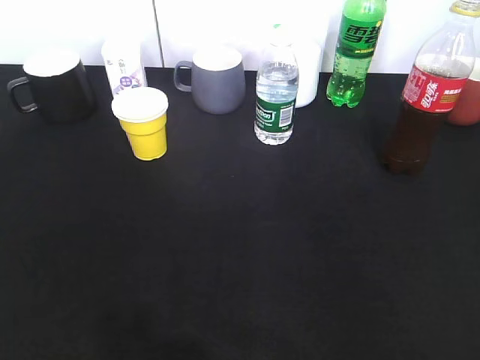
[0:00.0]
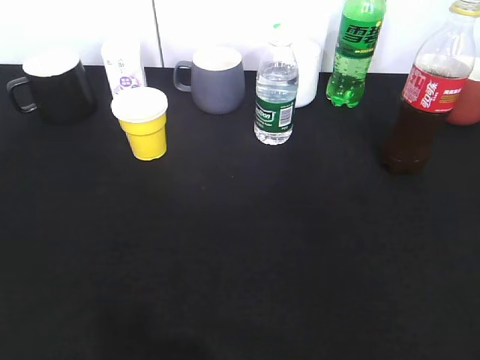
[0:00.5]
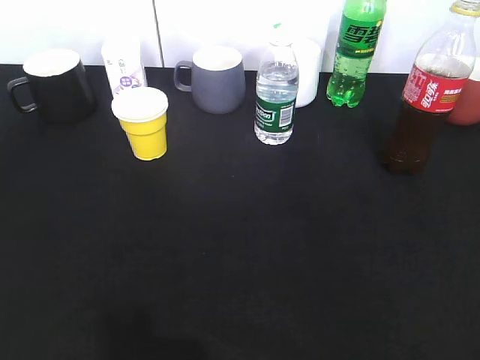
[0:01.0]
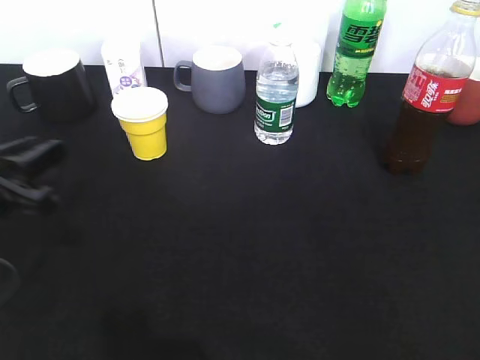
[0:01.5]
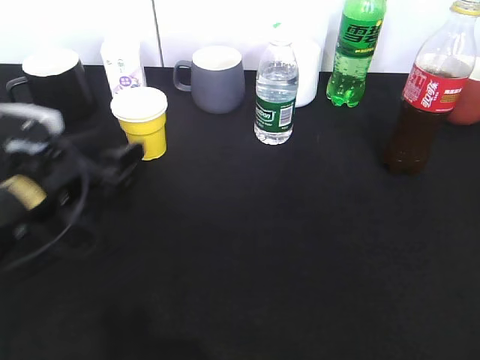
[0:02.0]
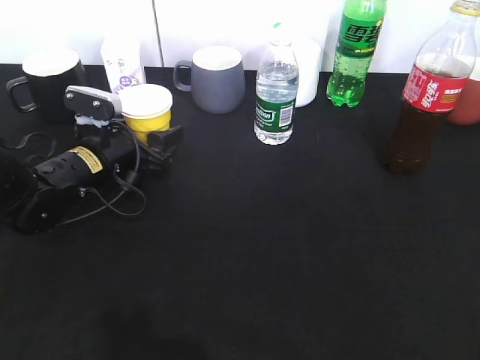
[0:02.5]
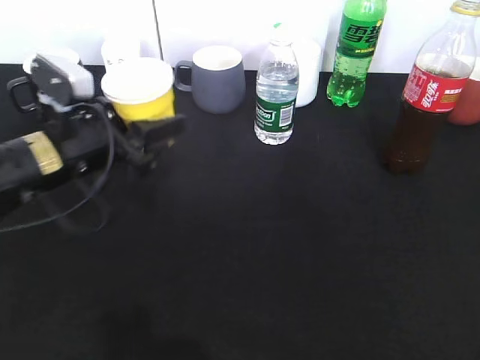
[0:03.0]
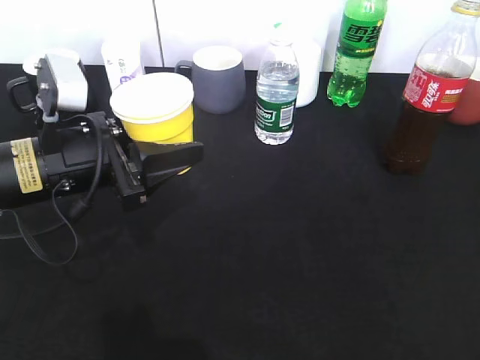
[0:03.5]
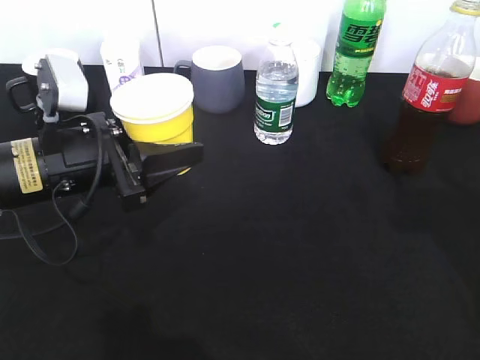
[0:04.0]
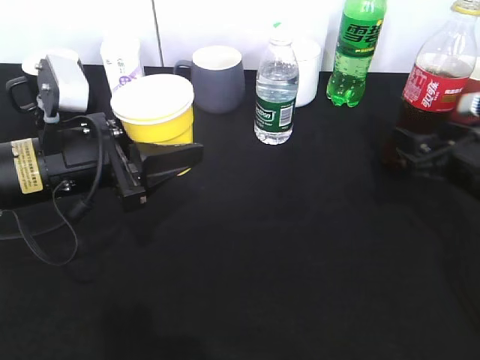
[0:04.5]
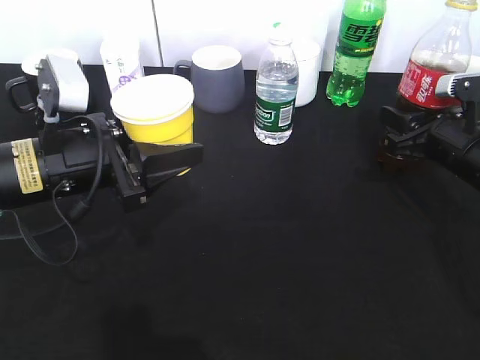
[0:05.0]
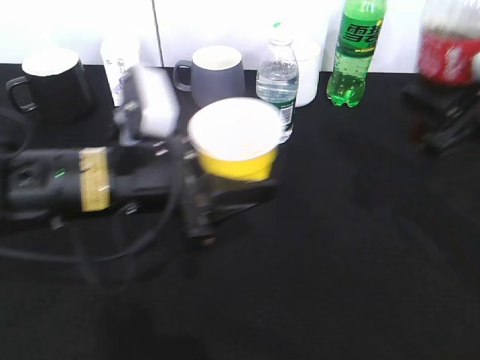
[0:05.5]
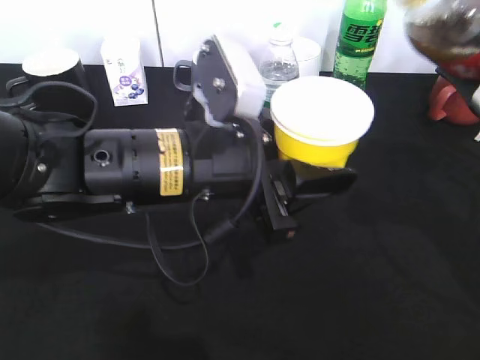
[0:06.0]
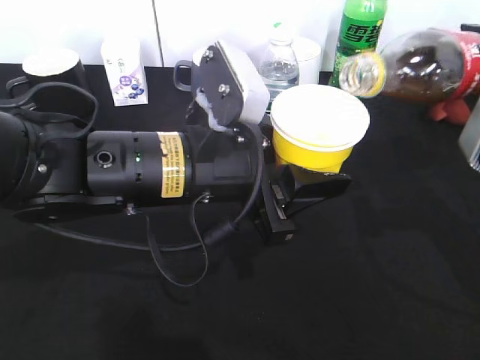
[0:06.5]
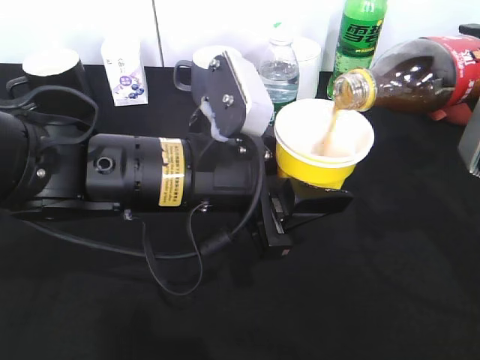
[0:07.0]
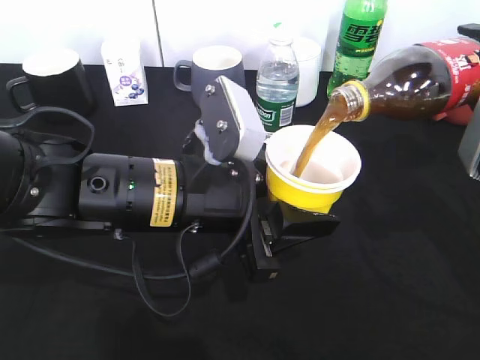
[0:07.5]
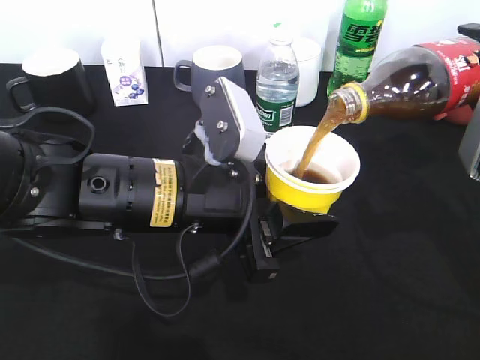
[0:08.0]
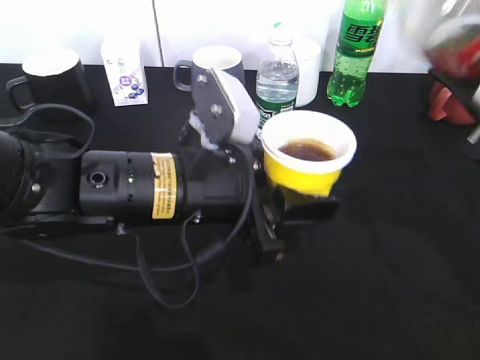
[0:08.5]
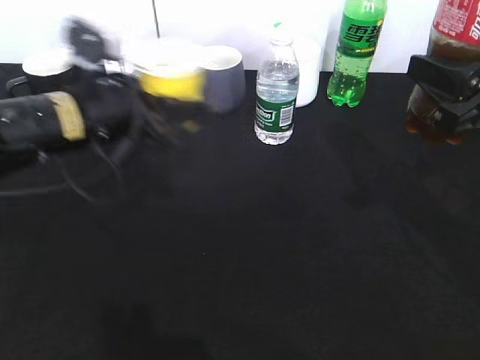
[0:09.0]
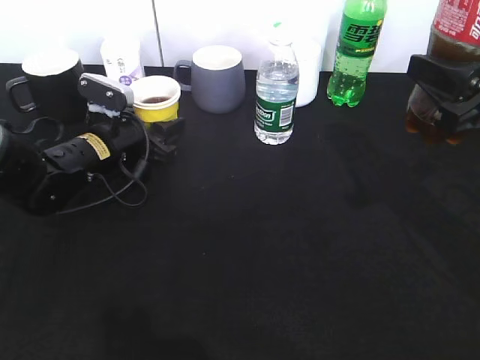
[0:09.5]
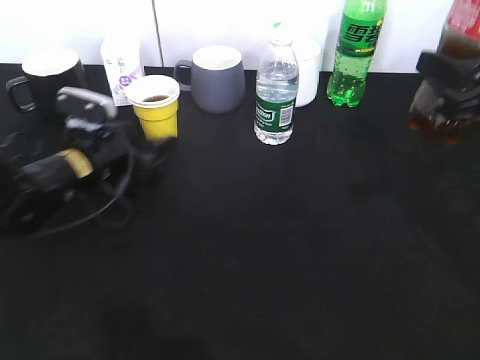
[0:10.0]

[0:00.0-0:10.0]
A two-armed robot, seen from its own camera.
Step, 0:01.0 to 0:02.5: Grasp the yellow paper cup with left gripper.
Step, 0:03.5 to 0:05.0: Grasp the bottle with cola with right gripper.
Step, 0:05.5 to 0:08.0: Pour the cola from bottle to cup with right gripper.
Step, 0:08.5 to 0:09.5: Place the yellow paper cup on the table with left gripper.
0:00.0 to 0:02.0: The left gripper is displaced forward and downward by about 35 cm, and opens its fingers.
0:02.0 to 0:04.0: The right gripper heads forward, covering some 20 cm. Meanwhile the left gripper travels upward by some 5 cm, goes forward and returns, approximately 5 cm each way, and closes up.
0:04.0 to 0:06.0: The right gripper reaches about 15 cm forward, then returns, and closes. Meanwhile the left gripper moves to the right, approximately 15 cm.
0:08.0 to 0:10.0: The left gripper goes about 20 cm to the left, forward and downward, and opens.

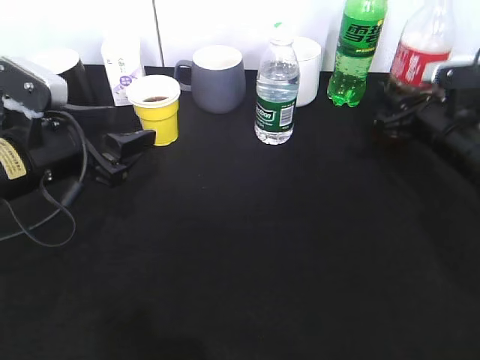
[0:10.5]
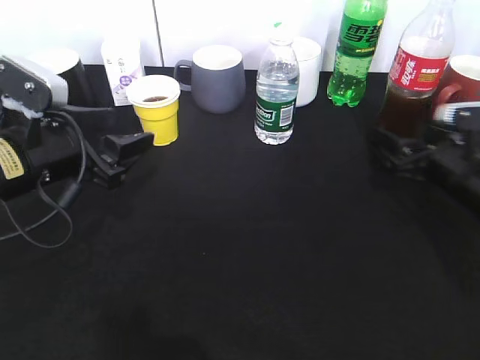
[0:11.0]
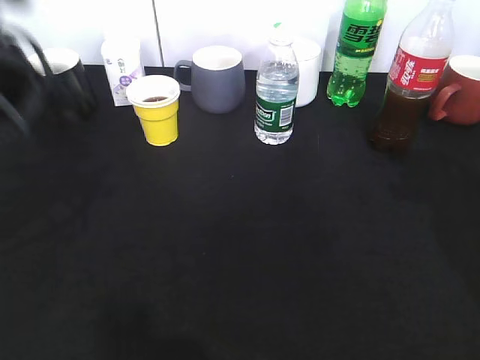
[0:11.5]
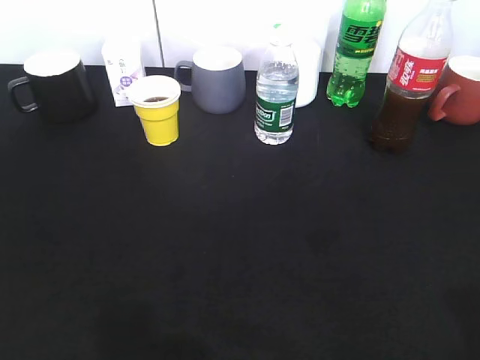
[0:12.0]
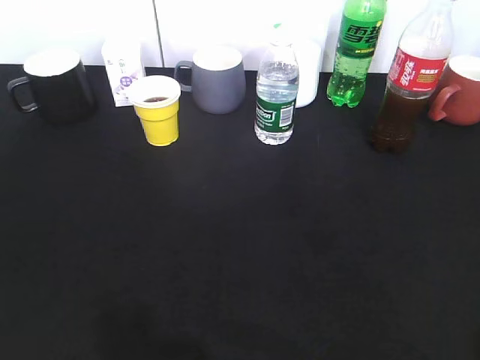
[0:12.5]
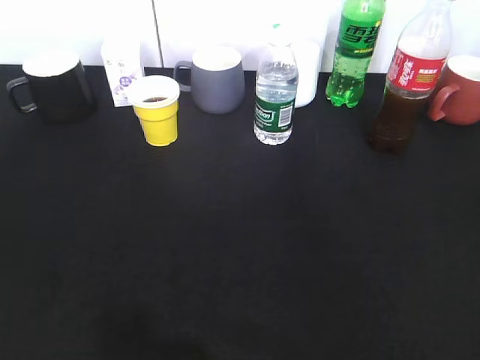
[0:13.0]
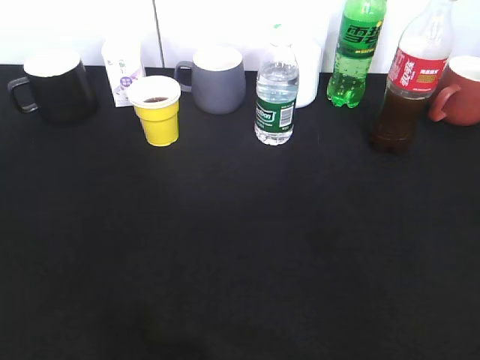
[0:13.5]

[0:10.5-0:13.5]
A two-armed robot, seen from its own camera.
0:10.5 to 0:12.0: The right gripper travels backward and upward by about 40 cm, and opens. The left gripper is displaced backward, upward and to the left by roughly 30 cm, and closes up.

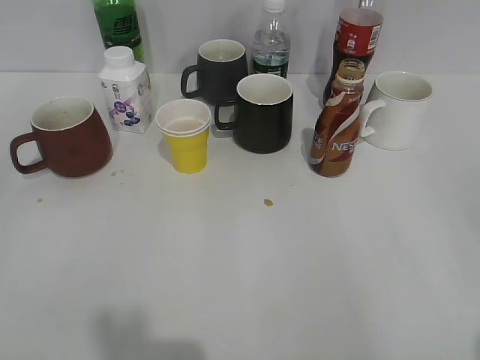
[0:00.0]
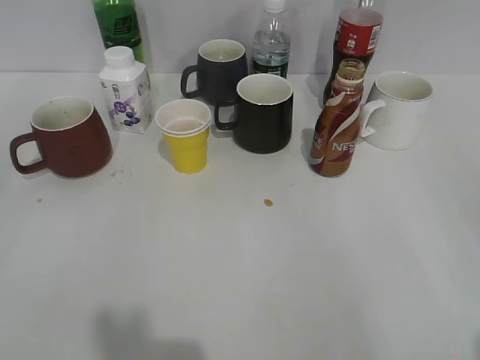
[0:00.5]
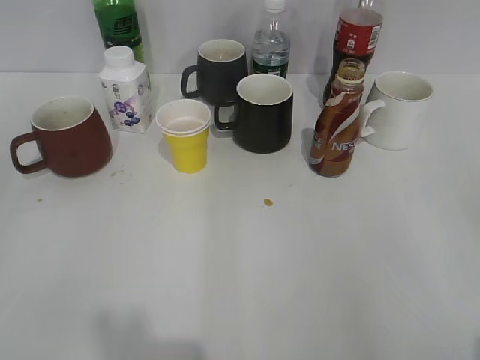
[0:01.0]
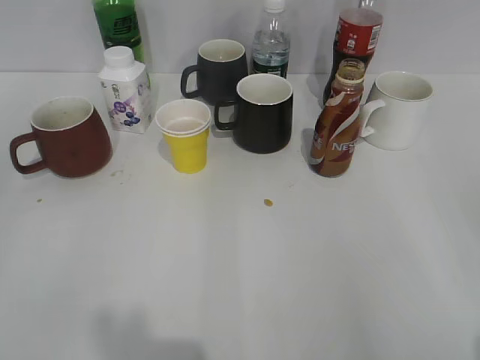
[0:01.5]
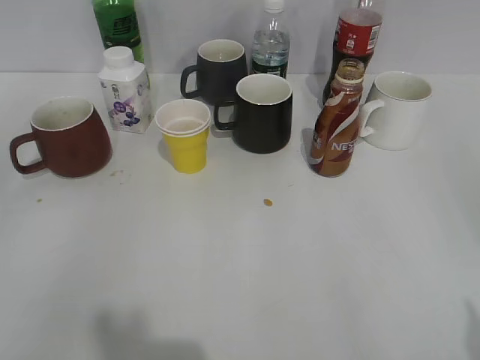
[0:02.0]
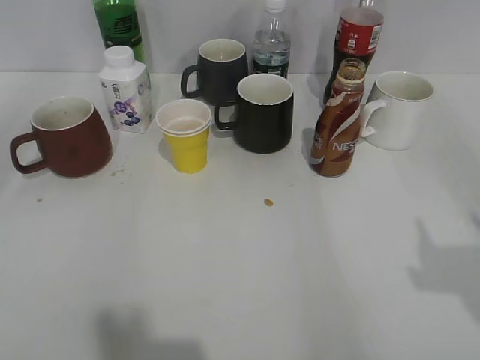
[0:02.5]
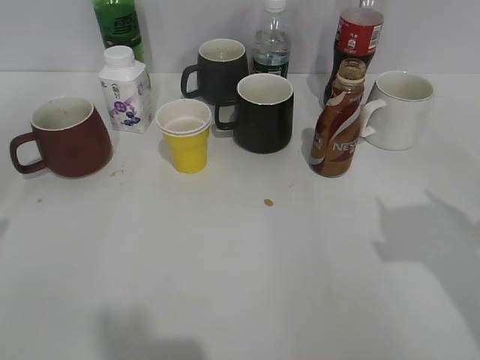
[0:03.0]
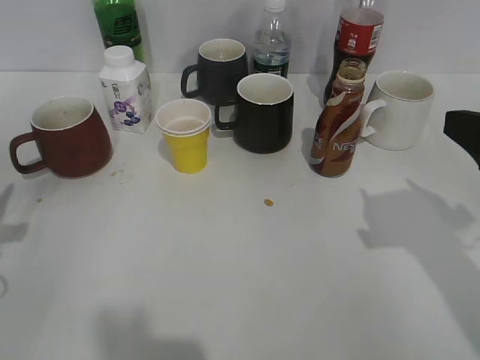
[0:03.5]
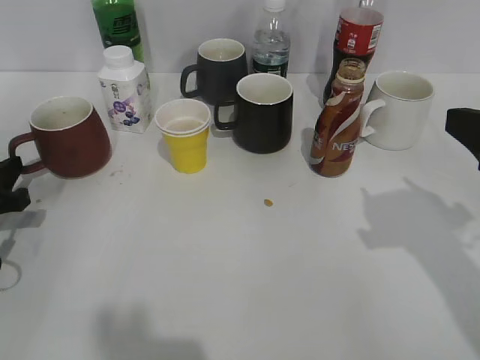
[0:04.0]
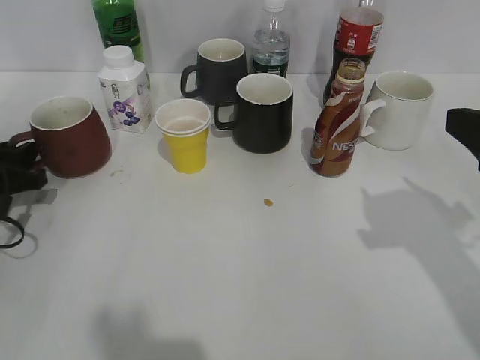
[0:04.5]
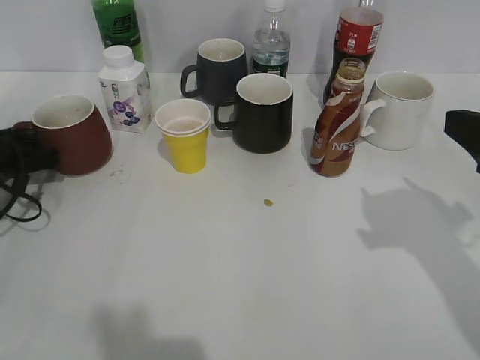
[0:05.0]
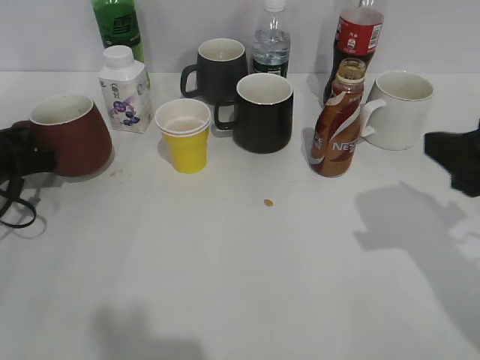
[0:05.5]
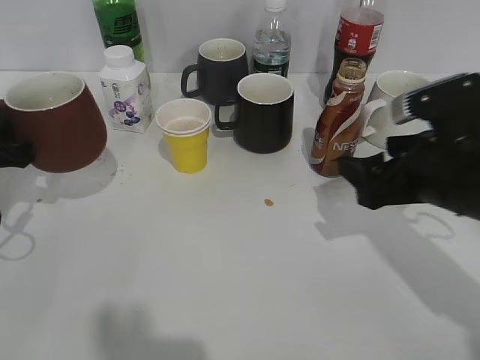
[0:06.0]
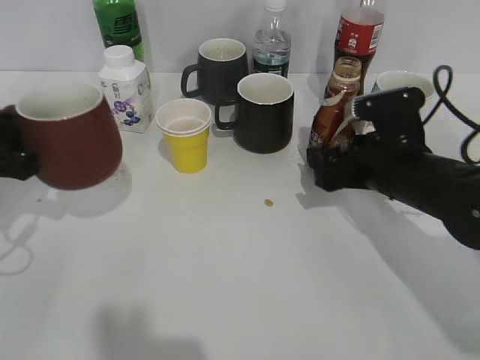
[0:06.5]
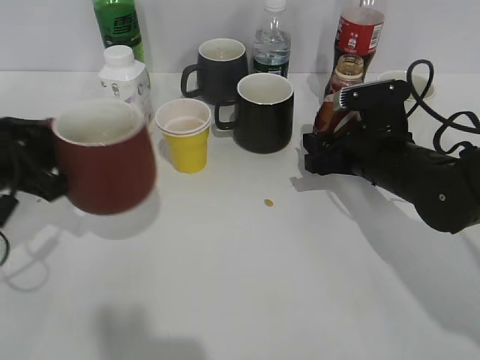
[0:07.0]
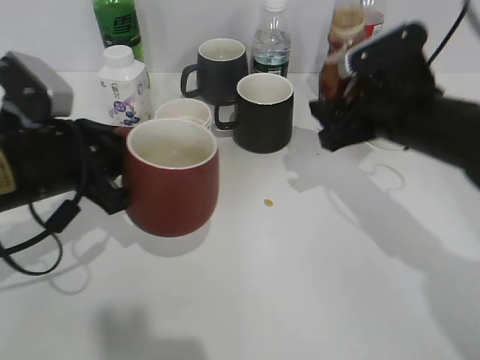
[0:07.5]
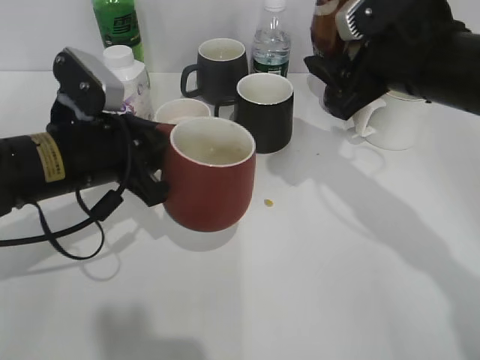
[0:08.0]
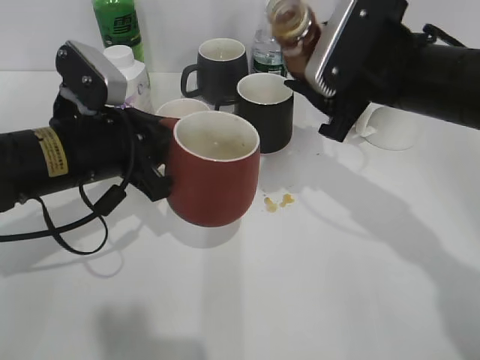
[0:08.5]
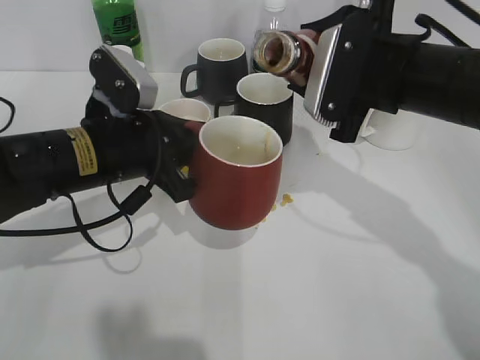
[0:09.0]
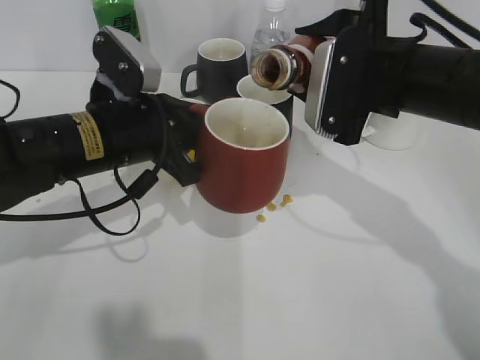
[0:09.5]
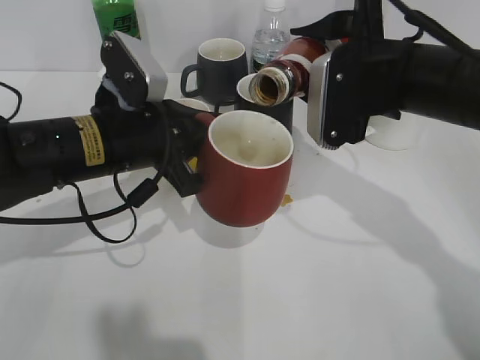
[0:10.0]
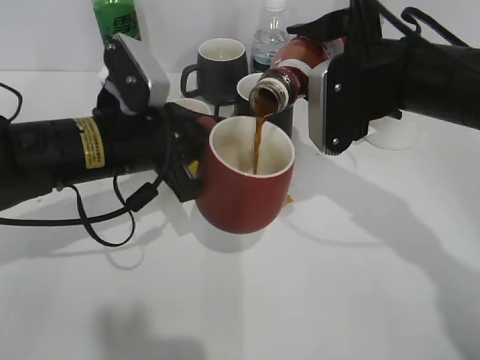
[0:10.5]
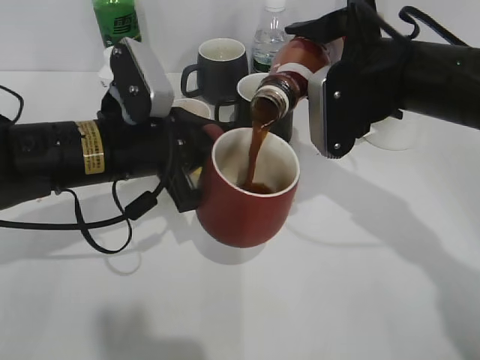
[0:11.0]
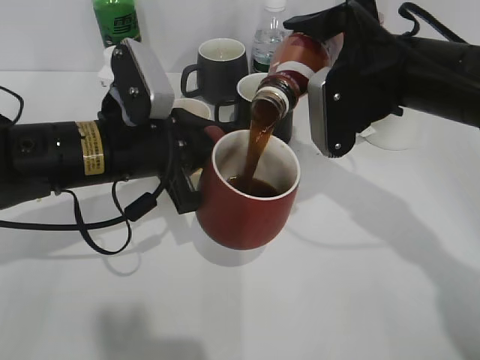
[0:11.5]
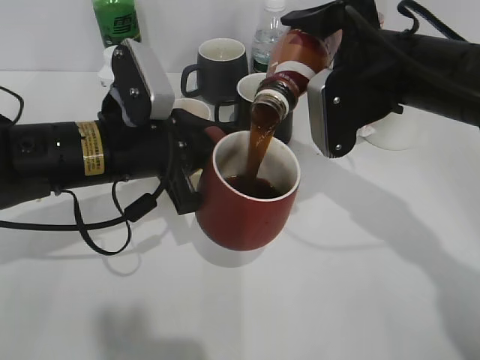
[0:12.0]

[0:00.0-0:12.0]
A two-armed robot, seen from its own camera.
Step, 0:02.0 to 0:05.0: Grasp the red cup with left gripper.
Step, 0:05.5 to 0:06.5: Grasp the bottle with coffee with right gripper.
0:02.0 to 0:04.0: The left gripper travels forward and downward by roughly 30 cm. Meanwhile the right gripper is displaced forward by roughly 15 cm.
0:04.0 to 0:06.0: The right gripper shifts approximately 10 cm downward, forward and to the left, and opens its fingers. The left gripper travels forward and back again, about 10 cm each way, and closes up.
0:06.0 to 0:08.0: The right gripper travels upward and forward by about 10 cm, and closes up. The left gripper shifts some 15 cm to the right.
0:10.0 to 0:12.0: The grippers stay close to where they were, moving slightly.
